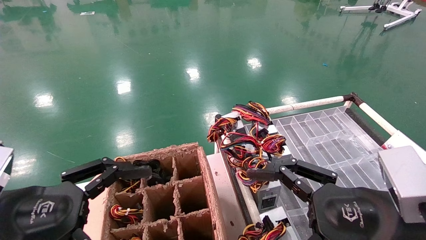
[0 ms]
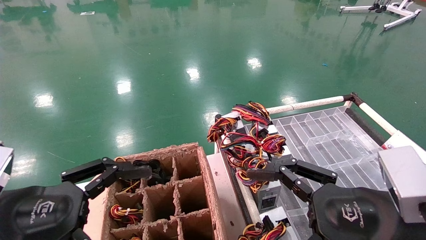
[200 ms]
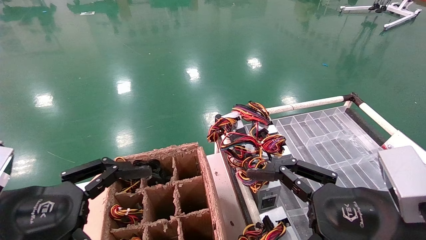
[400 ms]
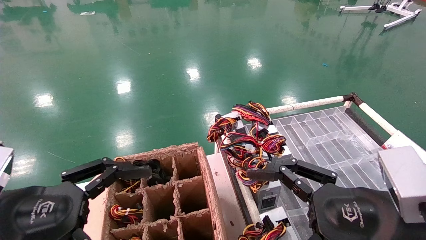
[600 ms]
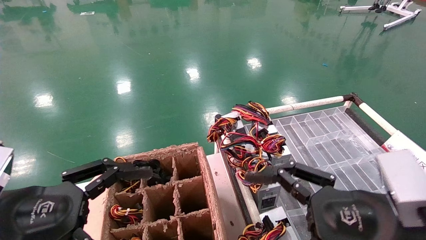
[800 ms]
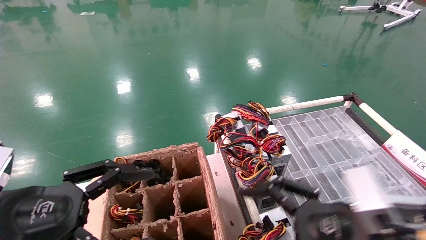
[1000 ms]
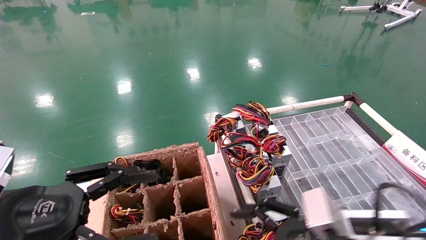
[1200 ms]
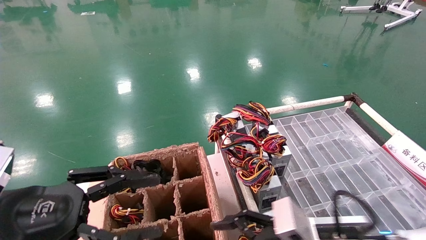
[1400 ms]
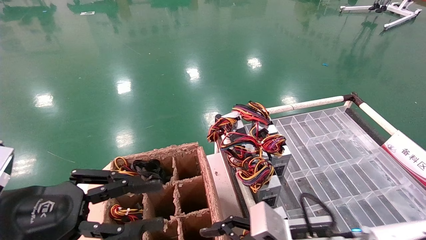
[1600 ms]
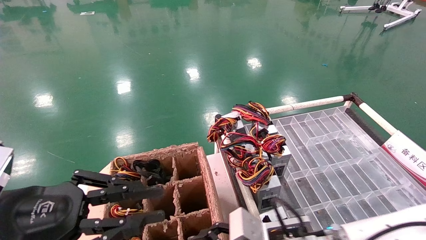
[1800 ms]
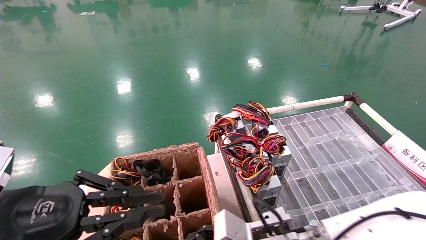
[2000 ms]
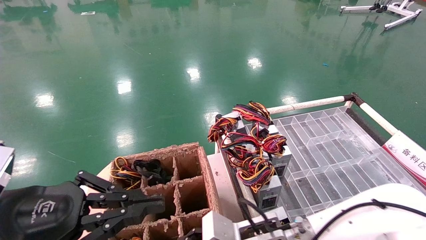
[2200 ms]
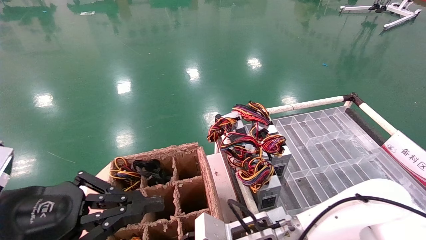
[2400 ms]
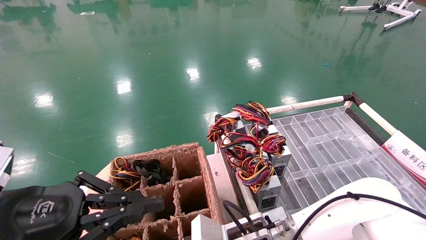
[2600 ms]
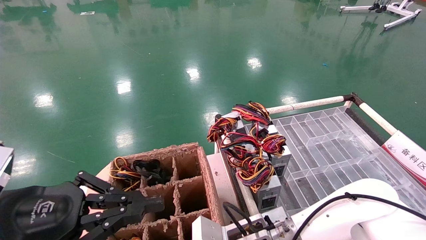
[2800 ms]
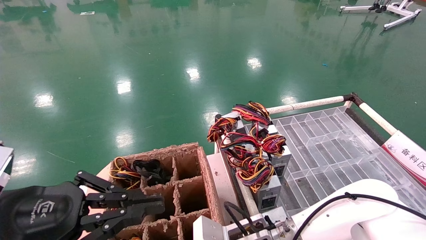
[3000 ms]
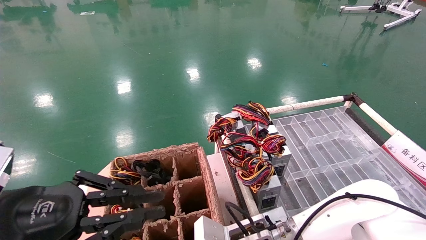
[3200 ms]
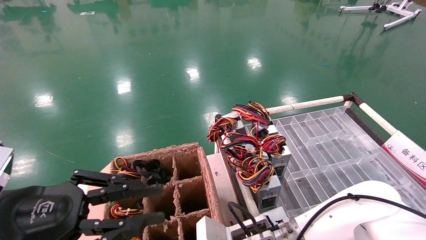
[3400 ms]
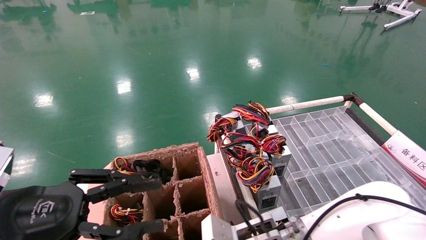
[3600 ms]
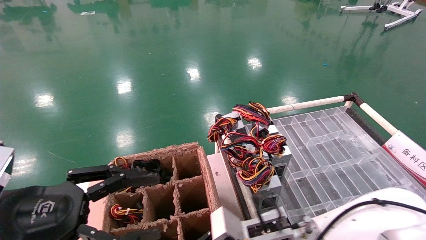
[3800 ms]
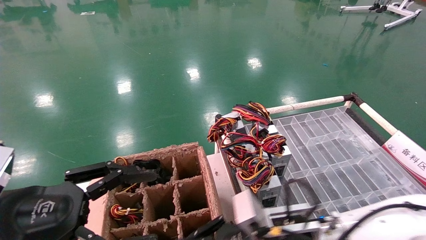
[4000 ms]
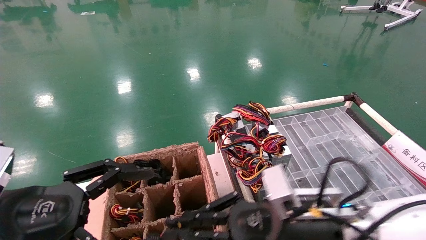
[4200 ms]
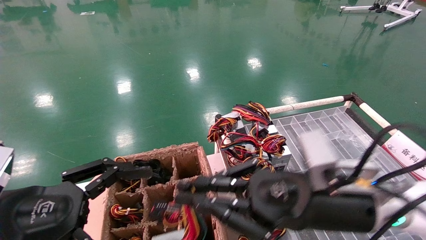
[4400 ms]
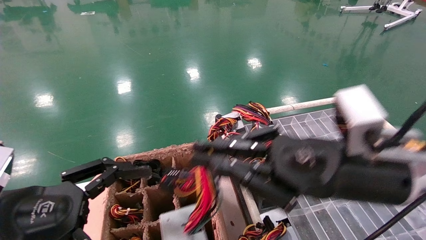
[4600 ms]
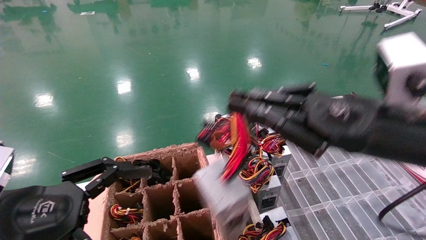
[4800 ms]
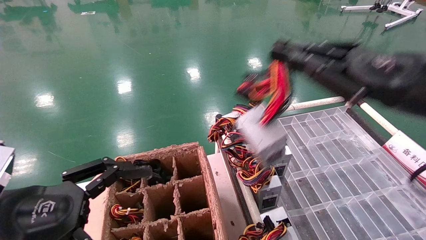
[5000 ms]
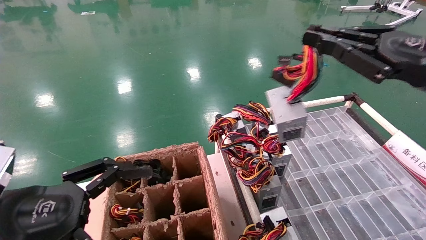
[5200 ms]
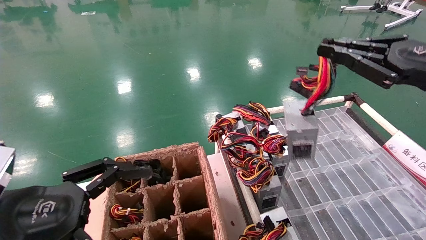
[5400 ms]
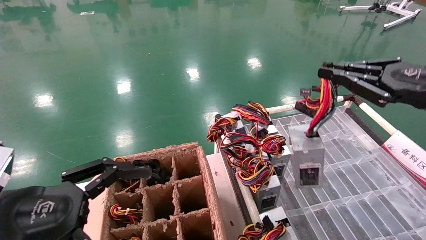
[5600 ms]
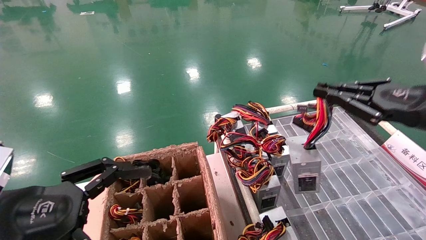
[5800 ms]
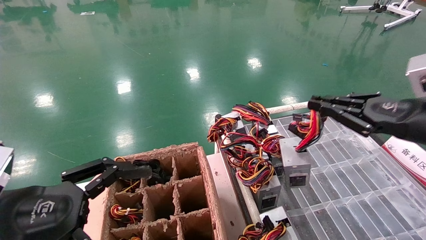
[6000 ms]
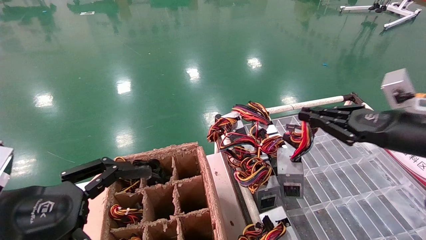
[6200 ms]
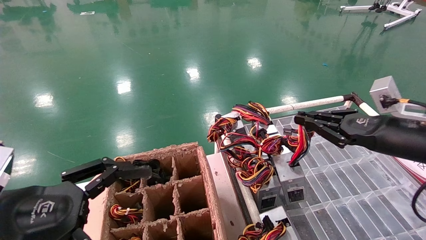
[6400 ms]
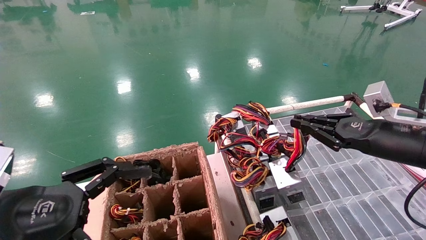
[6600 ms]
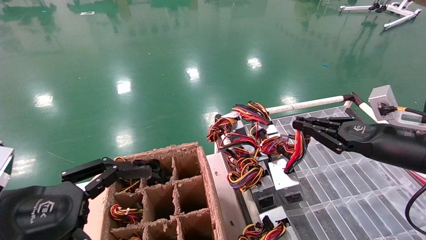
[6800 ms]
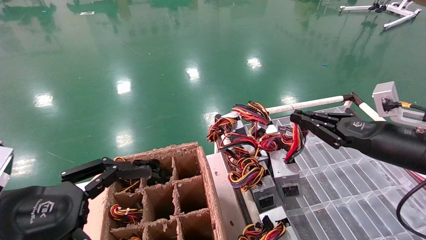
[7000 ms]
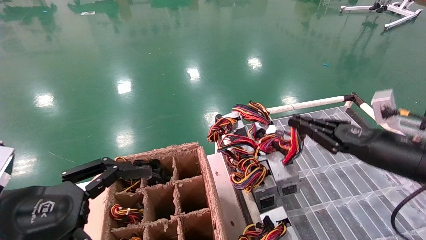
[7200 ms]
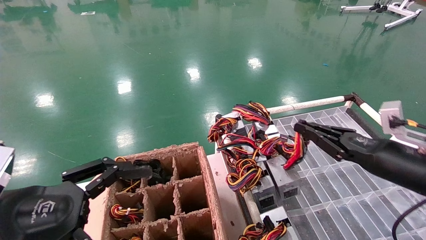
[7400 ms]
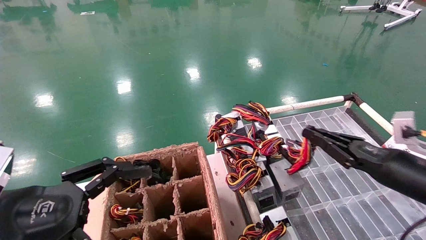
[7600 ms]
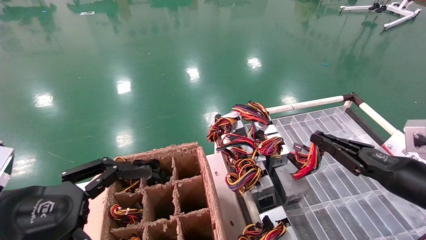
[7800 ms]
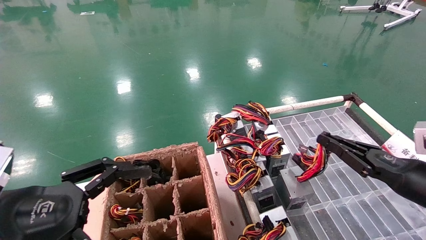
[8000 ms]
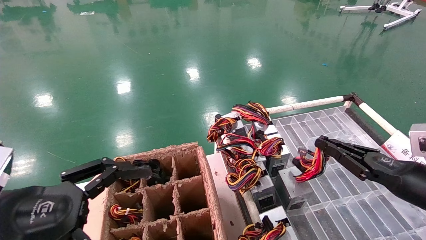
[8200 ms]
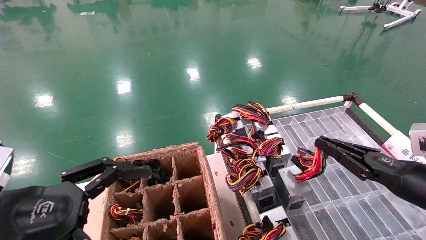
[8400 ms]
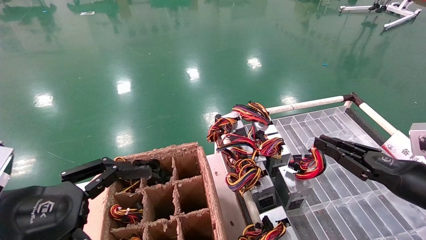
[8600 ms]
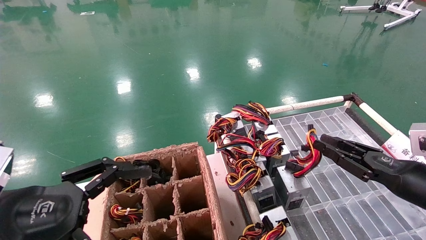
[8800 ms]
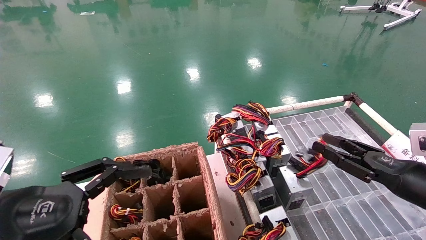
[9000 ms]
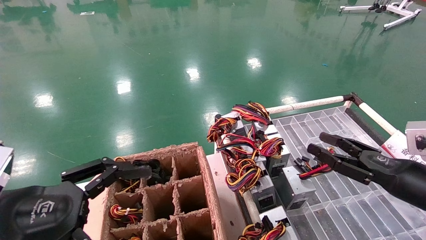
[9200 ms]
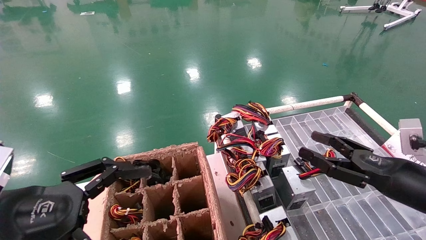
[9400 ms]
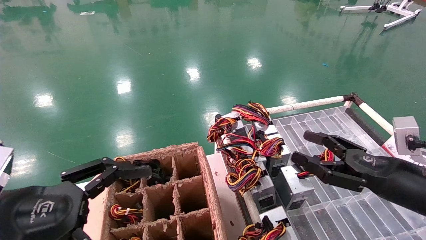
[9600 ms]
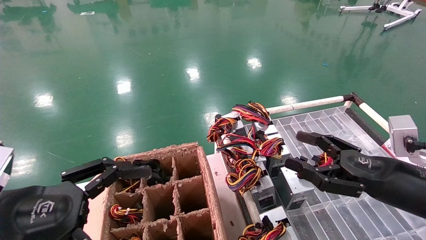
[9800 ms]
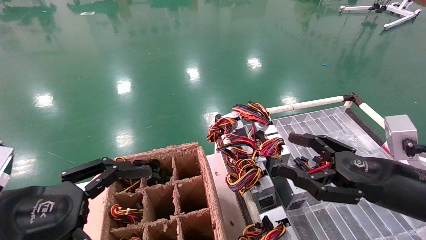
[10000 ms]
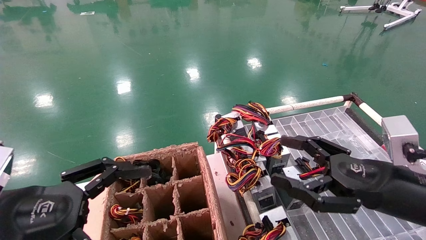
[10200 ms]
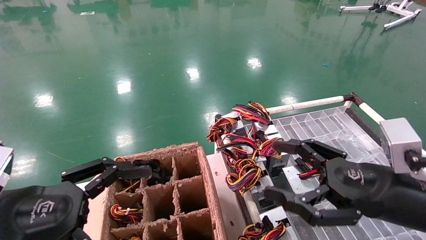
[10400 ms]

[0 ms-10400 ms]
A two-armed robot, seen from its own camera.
Step, 1000 ms to 3400 ms: Grab and lift the power supply from the large box.
Step, 3600 ms to 8600 ms: Place the power supply on the operating table.
0 ms to 1400 ms: The right gripper is displaced downward, forward and to the left by some 10 cm.
1400 ms to 3000 ms: The right gripper travels to the left, forward and downward by roughly 15 cm, and closes up. Meanwhile the left gripper closes.
3000 ms to 4400 ms: The right gripper travels upward, to the right and backward by approximately 20 cm, and closes. The left gripper opens.
4400 ms to 6000 ms: The right gripper heads to the right and upward, covering roughly 20 cm.
6000 ms to 7400 ms: The right gripper travels downward by about 10 cm.
7400 ms to 9000 ms: The right gripper moves about 5 cm.
9000 ms to 10400 ms: The right gripper heads to the left and backward, covering roughly 10 cm, and opens up.

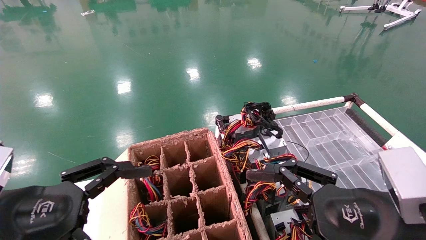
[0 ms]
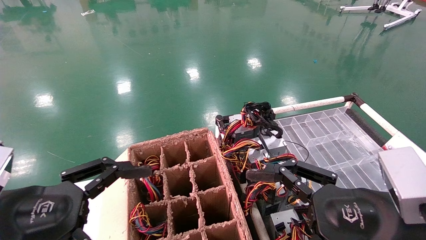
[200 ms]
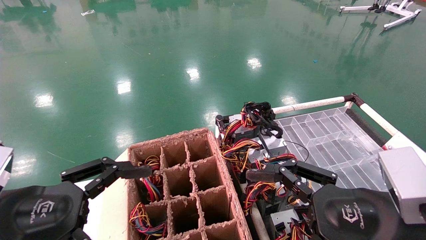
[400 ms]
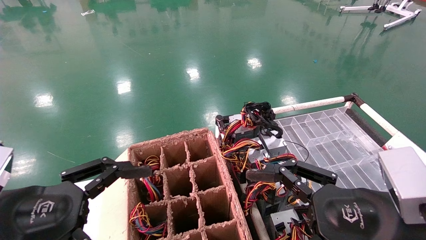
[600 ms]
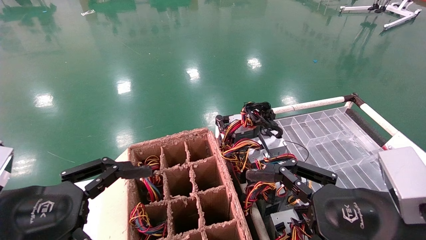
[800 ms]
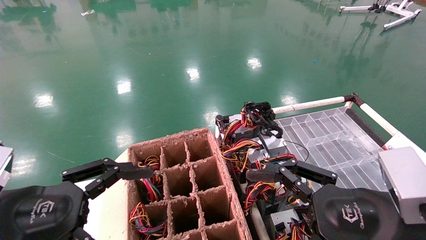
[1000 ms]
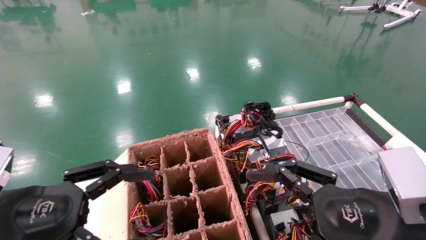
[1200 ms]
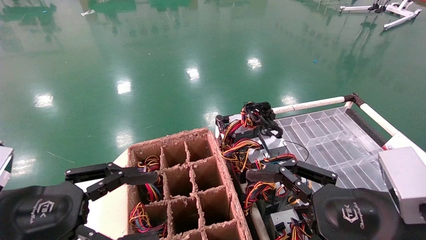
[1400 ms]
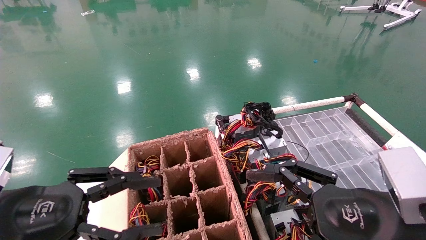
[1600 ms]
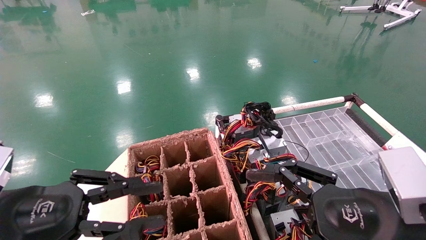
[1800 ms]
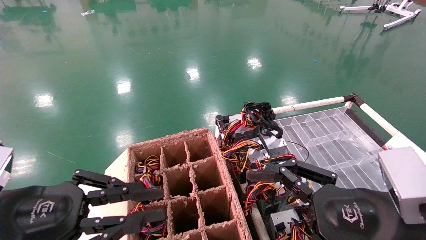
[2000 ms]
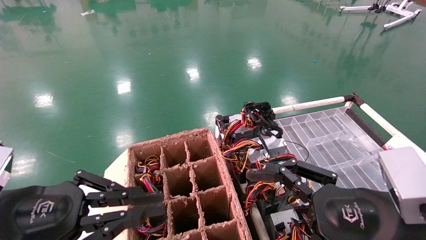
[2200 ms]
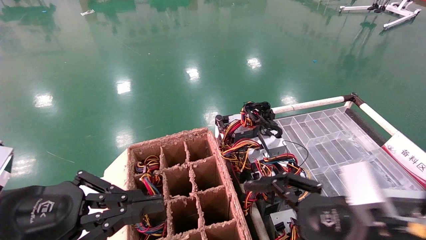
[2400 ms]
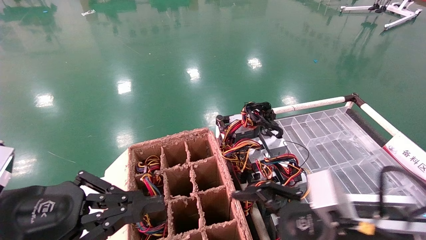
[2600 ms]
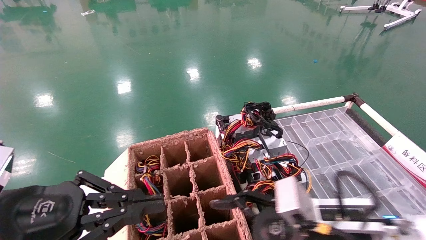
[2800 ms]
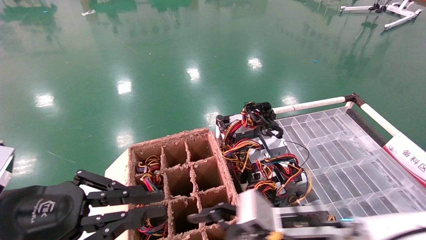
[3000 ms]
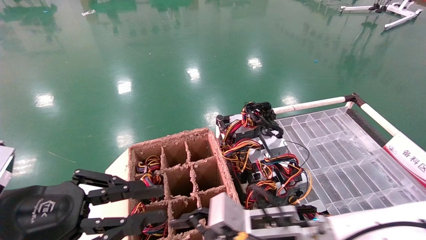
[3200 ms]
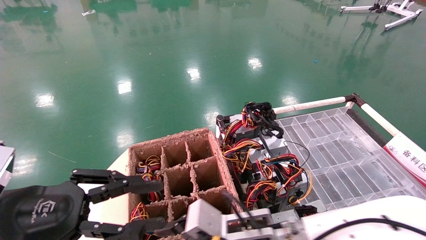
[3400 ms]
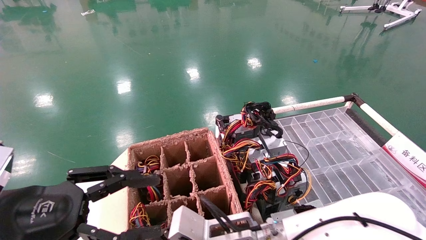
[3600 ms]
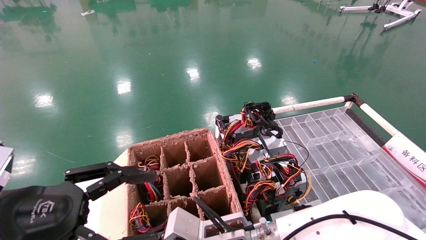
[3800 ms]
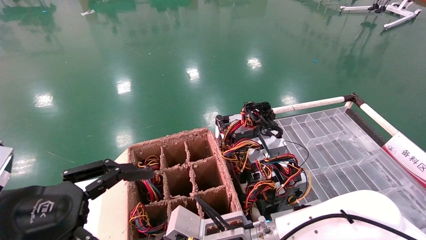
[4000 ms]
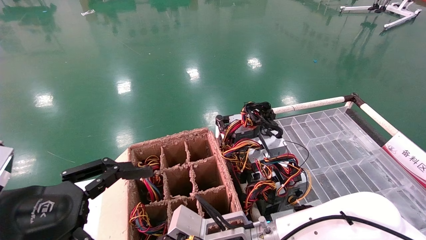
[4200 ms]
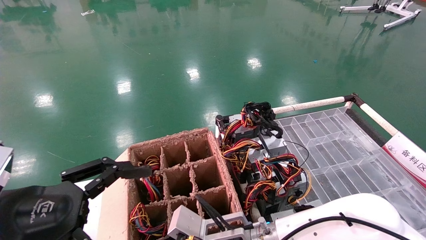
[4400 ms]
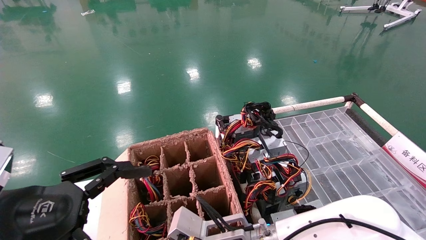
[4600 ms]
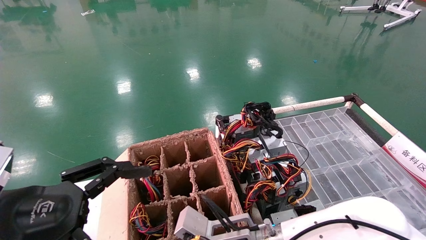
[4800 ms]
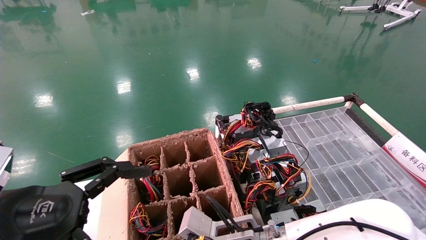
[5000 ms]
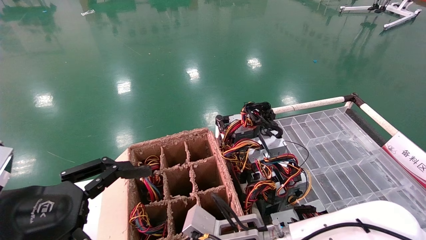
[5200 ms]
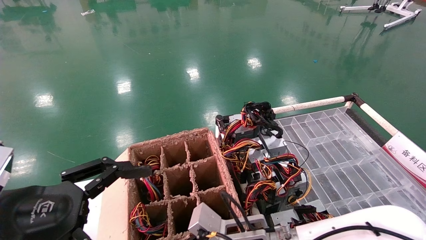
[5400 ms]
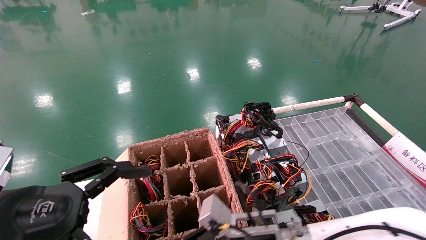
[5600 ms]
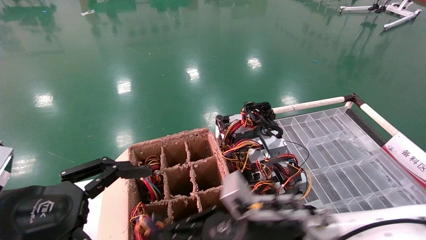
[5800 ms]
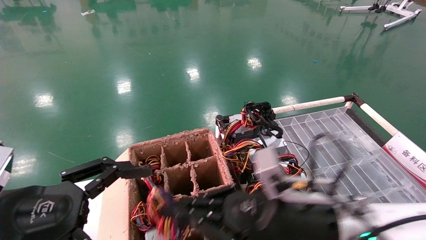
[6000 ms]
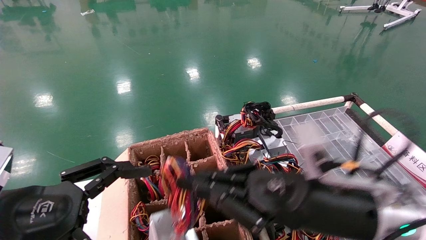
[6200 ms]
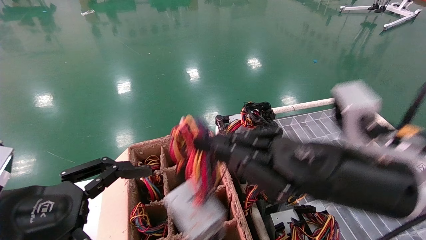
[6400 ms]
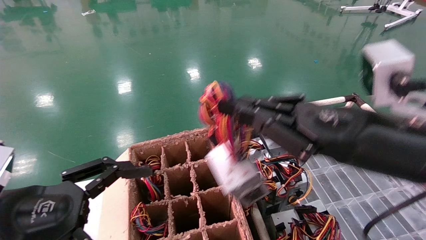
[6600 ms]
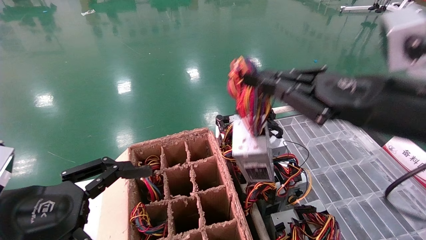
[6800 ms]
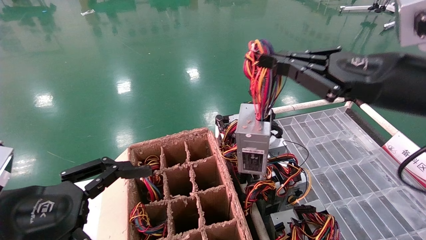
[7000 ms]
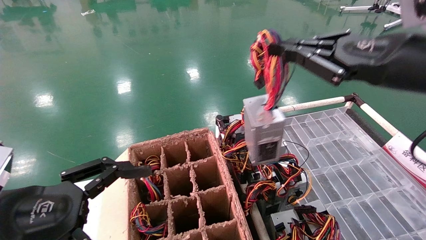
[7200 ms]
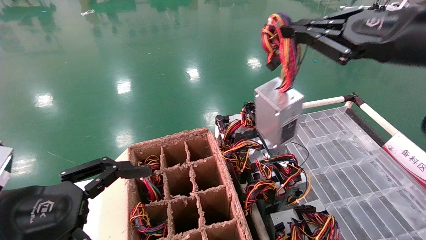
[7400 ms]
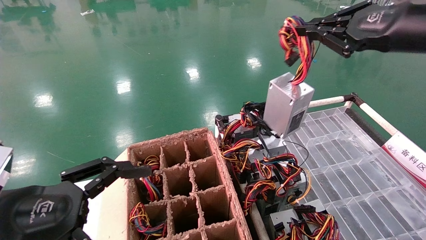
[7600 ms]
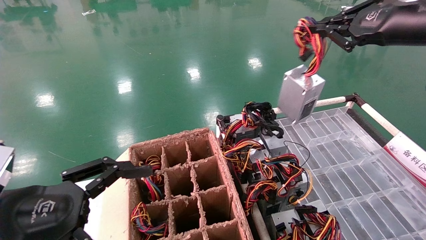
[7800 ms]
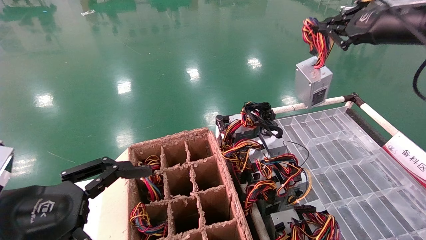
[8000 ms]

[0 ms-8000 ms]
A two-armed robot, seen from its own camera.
Step, 2600 ms to 5400 ms: Grab and lift the power supply from the large box.
0 ms to 1600 ms: The left gripper closes its fingers.
1600 ms to 3200 ms: The left gripper closes. Meanwhile the right gripper heads to the left, downward and forward, covering some 20 cm.
3200 ms to 4800 ms: The left gripper opens up. The right gripper shifts by some 5 cm, and closes its fingers.
4800 ms to 6400 ms: The right gripper shifts some 25 cm upward, to the right and backward.
6400 ms to 8000 ms: The right gripper moves upward, to the right and forward, roughly 25 cm.
